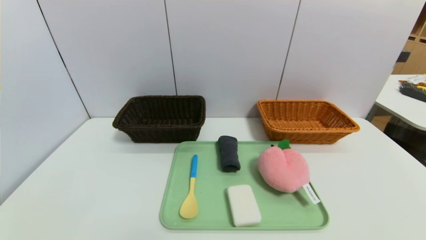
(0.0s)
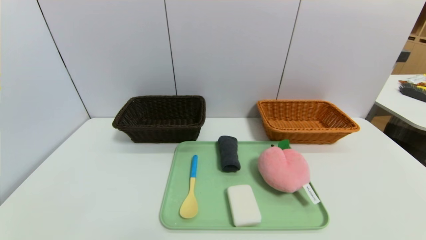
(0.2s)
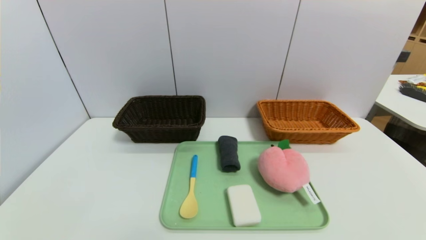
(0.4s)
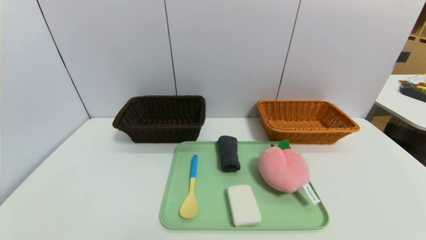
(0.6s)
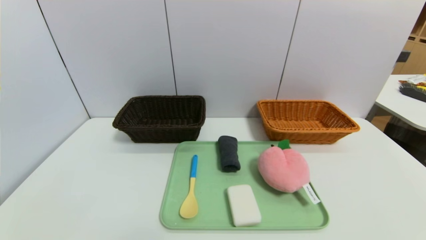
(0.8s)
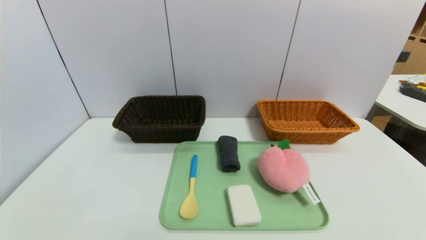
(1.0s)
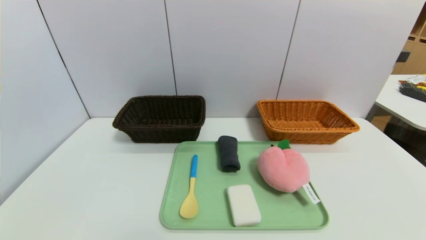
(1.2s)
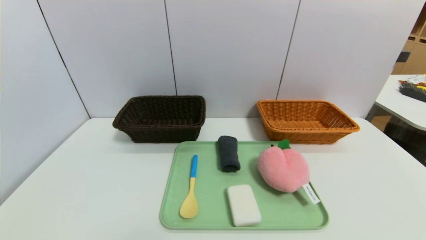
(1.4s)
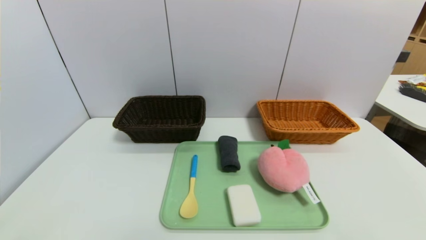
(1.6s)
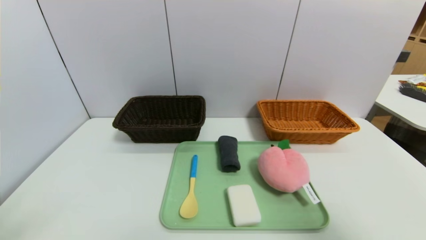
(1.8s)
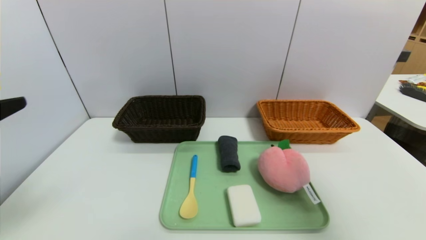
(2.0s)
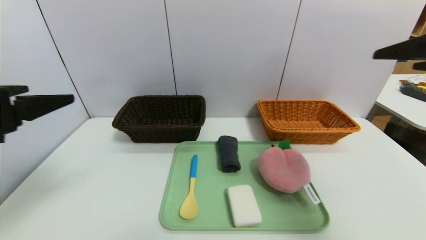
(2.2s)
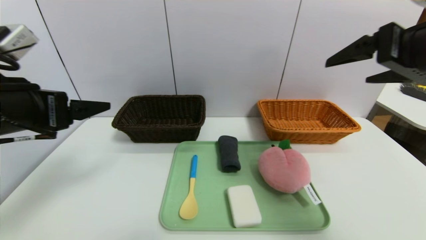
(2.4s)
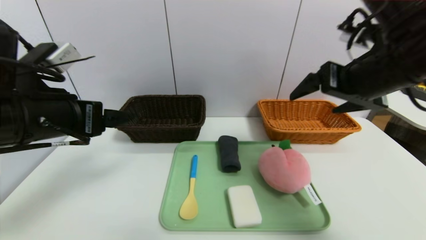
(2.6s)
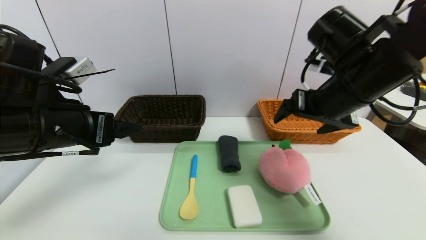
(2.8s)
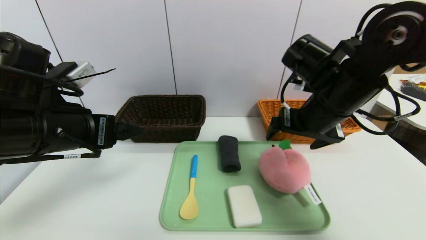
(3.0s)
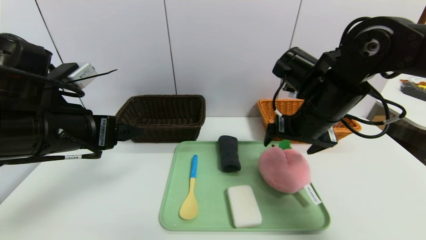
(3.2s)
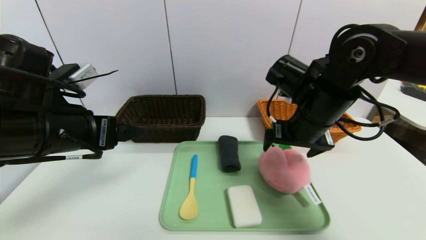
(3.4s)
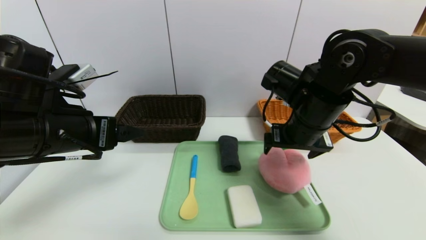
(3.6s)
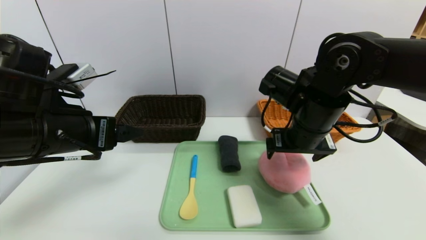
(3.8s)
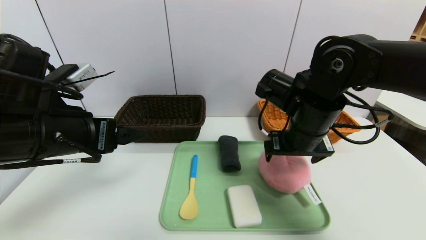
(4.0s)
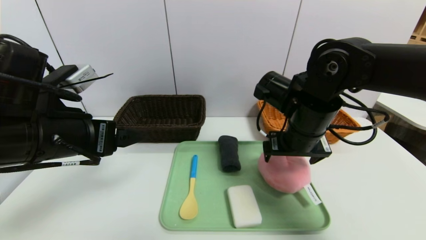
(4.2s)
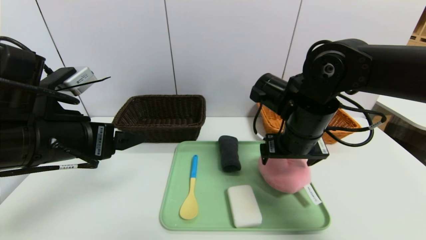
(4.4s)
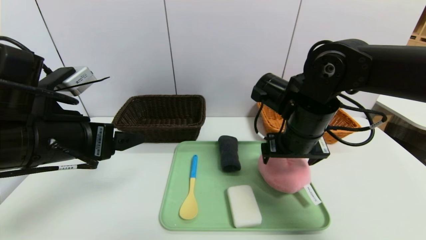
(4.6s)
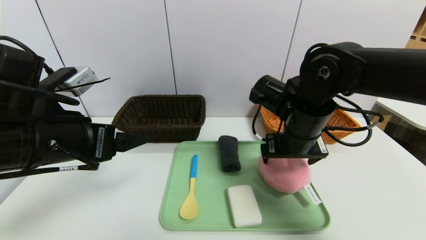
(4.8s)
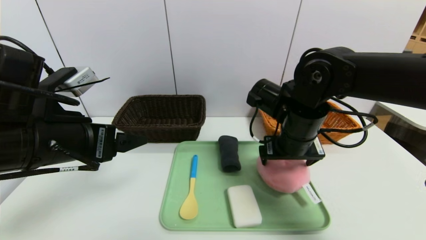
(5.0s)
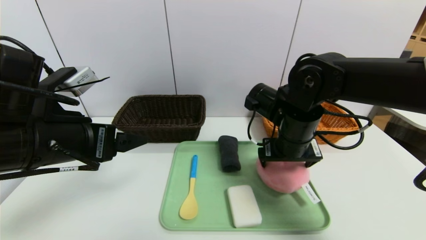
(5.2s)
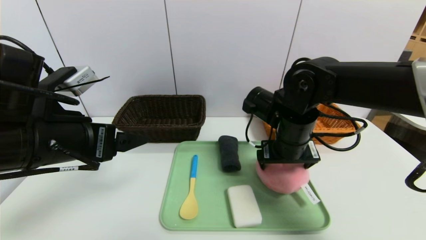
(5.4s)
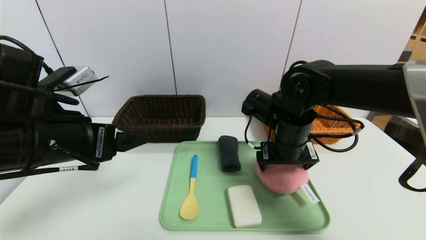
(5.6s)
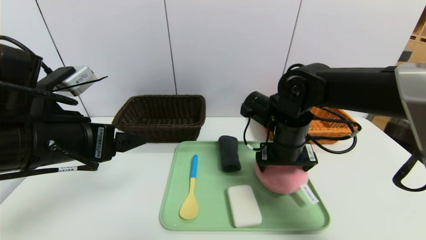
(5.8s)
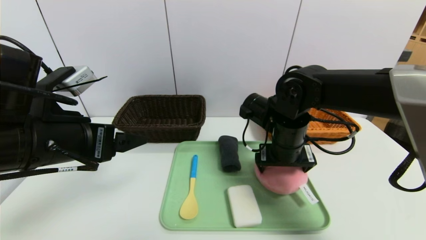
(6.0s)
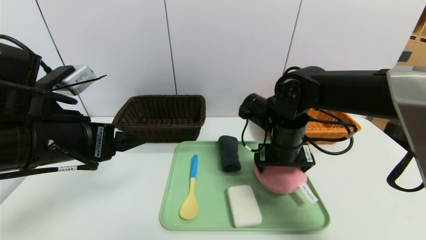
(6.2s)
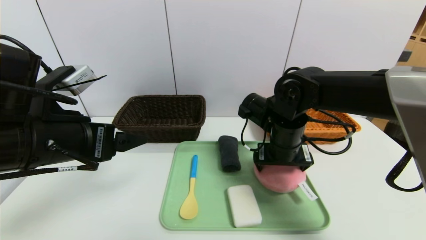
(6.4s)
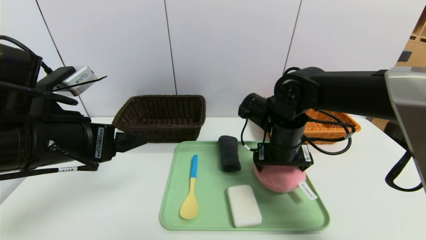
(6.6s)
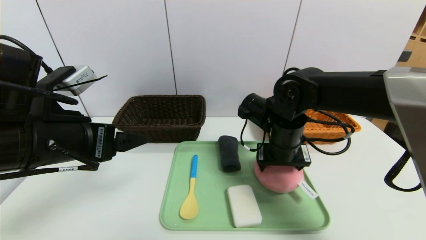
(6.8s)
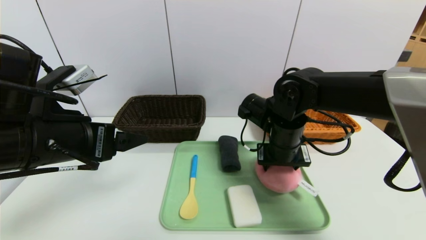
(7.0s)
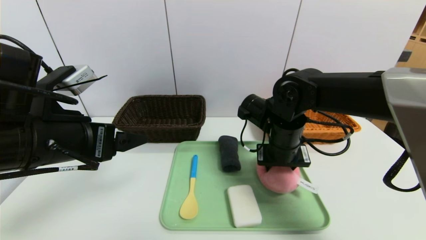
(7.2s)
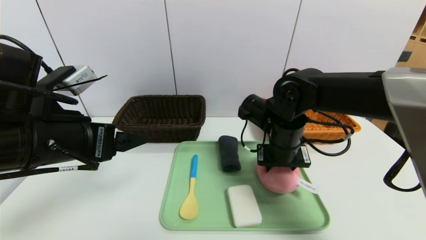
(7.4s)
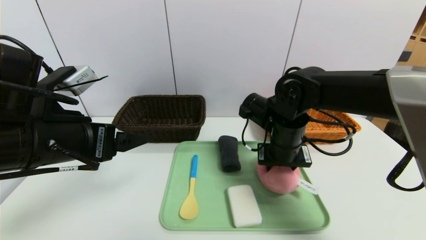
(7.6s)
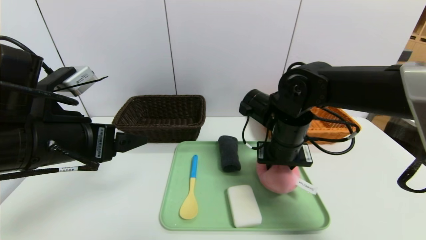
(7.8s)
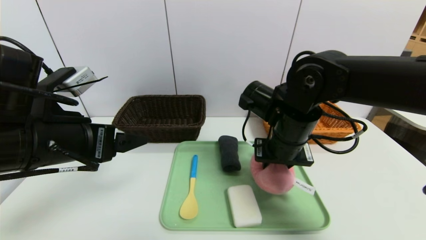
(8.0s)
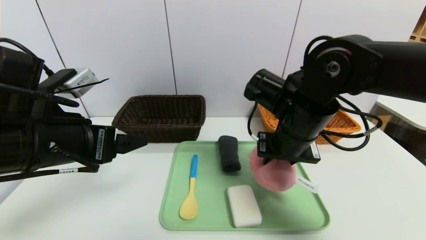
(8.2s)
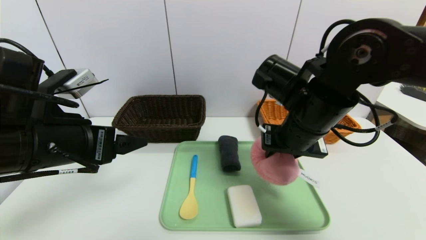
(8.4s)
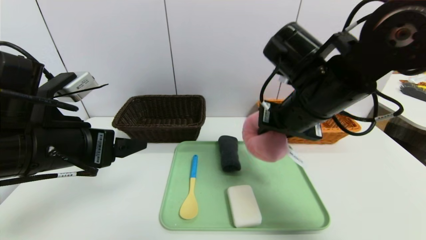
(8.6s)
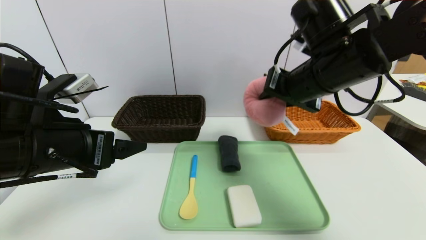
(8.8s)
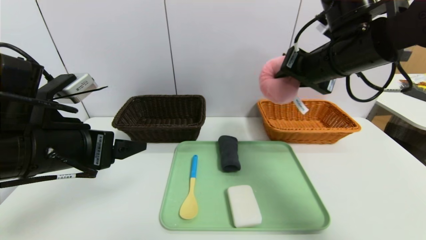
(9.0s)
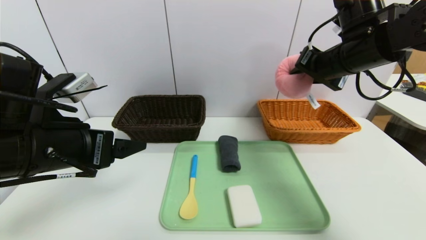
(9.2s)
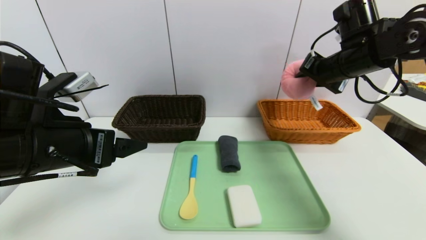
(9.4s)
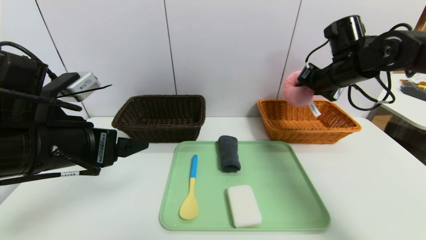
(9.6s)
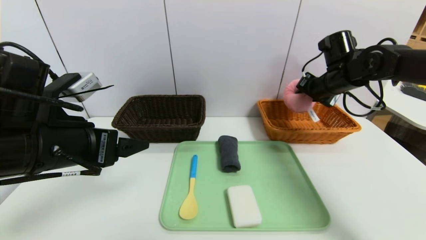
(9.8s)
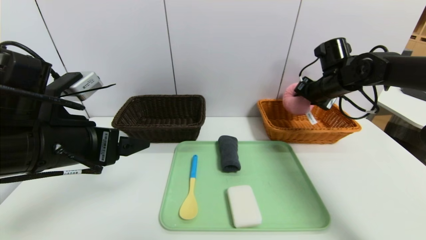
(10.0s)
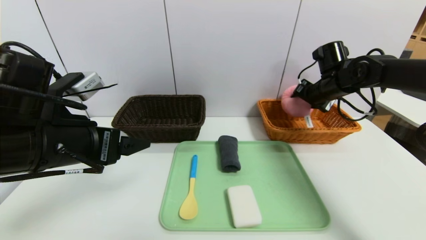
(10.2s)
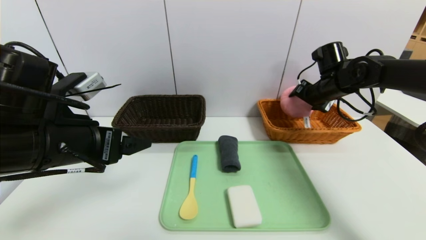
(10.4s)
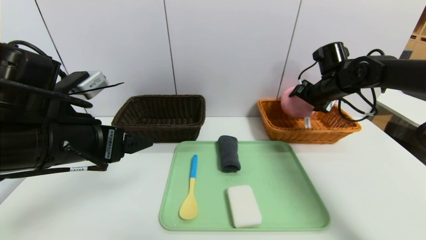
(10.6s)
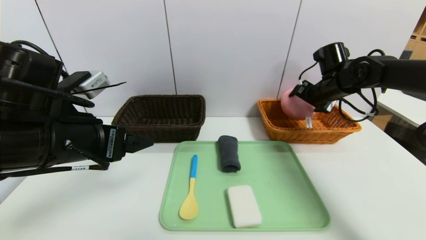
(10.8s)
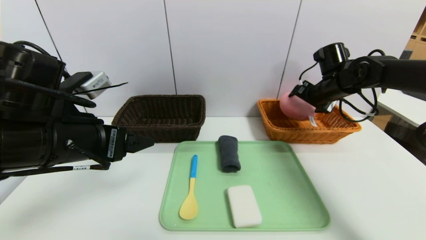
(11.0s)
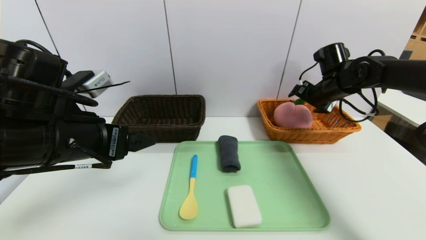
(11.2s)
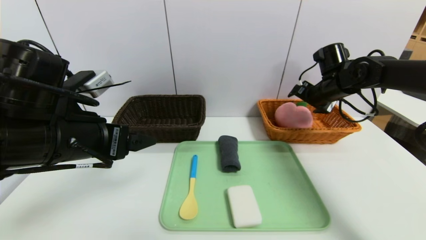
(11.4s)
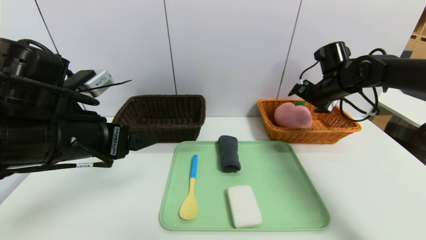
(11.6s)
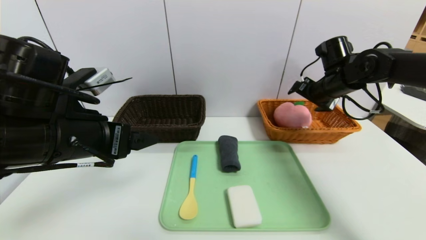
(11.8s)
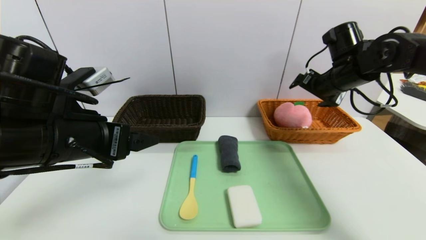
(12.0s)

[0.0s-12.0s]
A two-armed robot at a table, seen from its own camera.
Task of the whole recording: place the food in the right basket with the right gripper, and place the non food items in the left basket with the left gripper.
Step, 0.0s to 11.8s: Grasp the peach doll and put it in the right basket.
1.6s to 3.0s: The left gripper shifts approximately 20 cm forward. Meanwhile the right gripper moves forward and to the left, approximately 35 cm.
3.0s to 4.4s: The right gripper changes place by about 5 cm.
4.4s to 6.0s: The right gripper changes place by some 5 cm.
6.0s to 7.6s: The right gripper closes its fingers.
7.6s to 9.0s: The right gripper travels upward and to the right by approximately 15 cm.
9.0s to 10.4s: The right gripper is displaced forward, downward and to the right by about 20 cm, and opens its fingers.
10.4s to 12.0s: The right gripper shifts by roughly 5 cm, and opens.

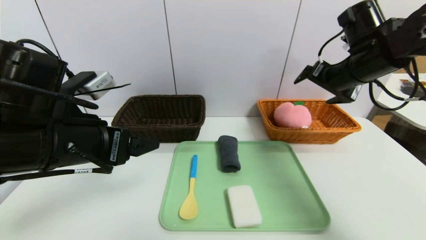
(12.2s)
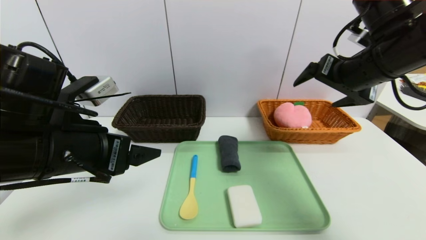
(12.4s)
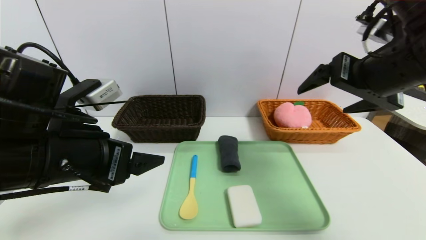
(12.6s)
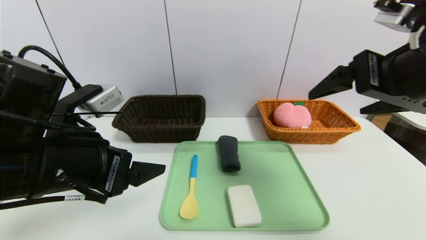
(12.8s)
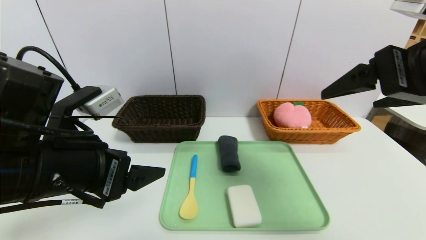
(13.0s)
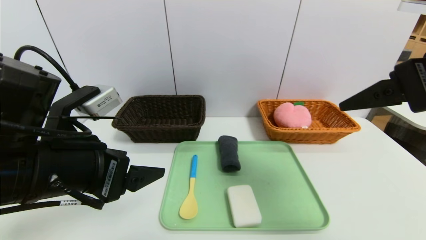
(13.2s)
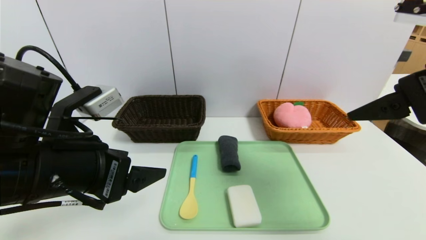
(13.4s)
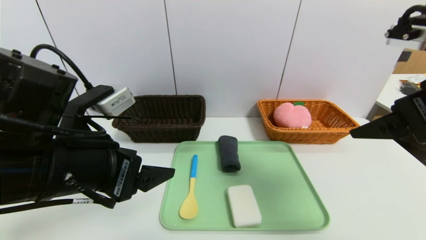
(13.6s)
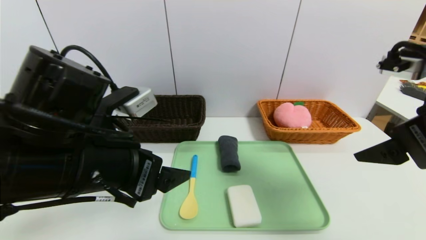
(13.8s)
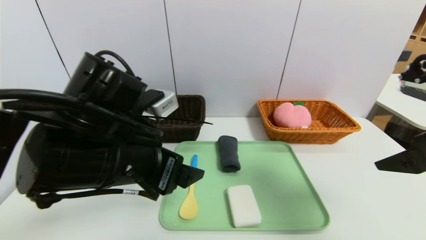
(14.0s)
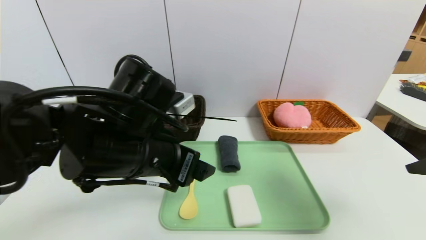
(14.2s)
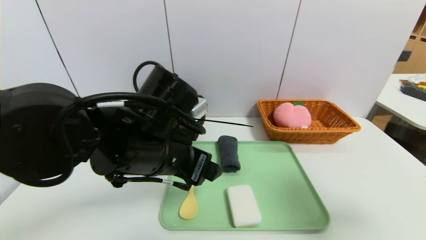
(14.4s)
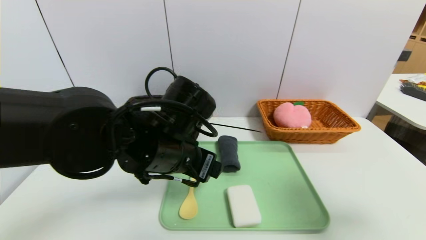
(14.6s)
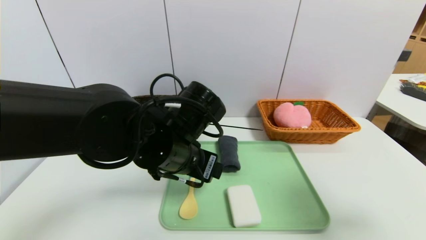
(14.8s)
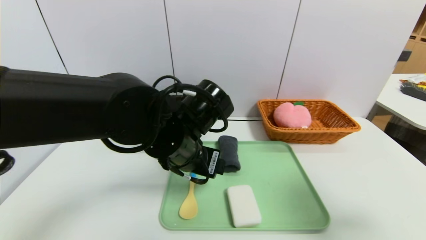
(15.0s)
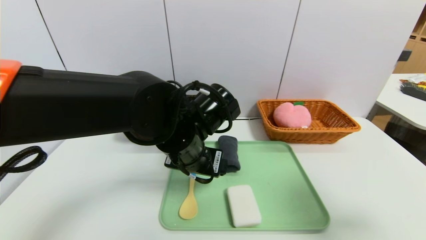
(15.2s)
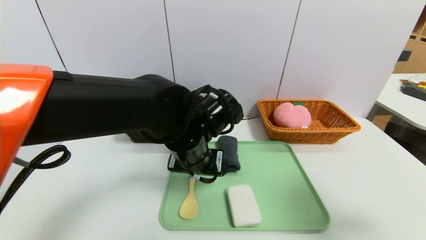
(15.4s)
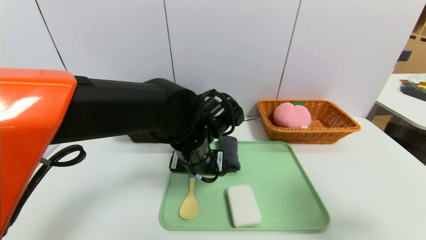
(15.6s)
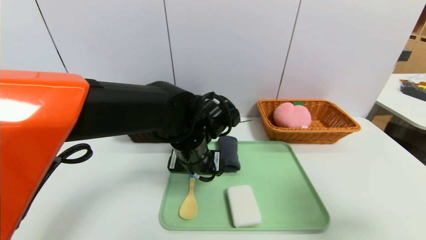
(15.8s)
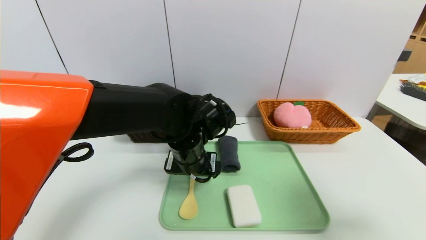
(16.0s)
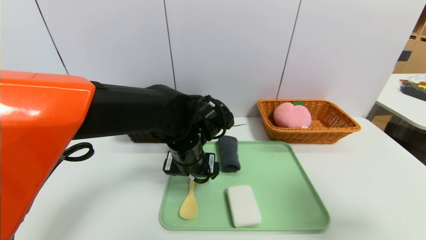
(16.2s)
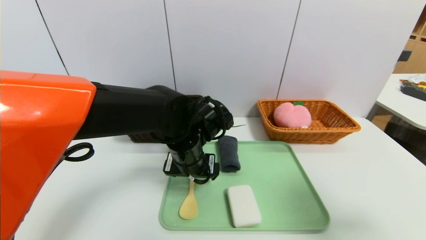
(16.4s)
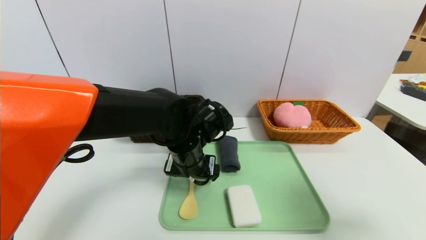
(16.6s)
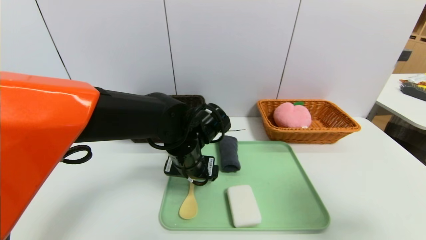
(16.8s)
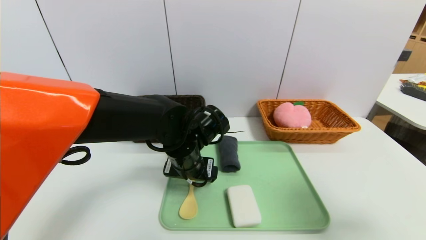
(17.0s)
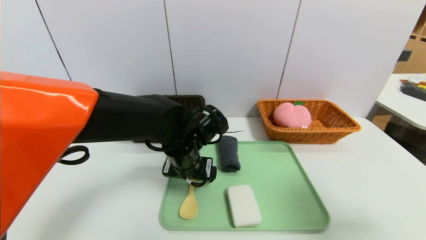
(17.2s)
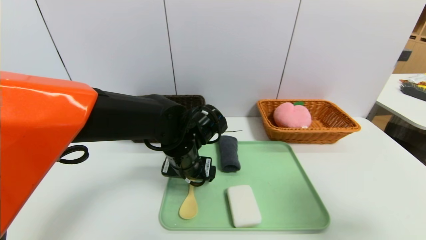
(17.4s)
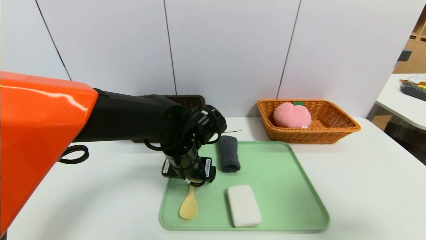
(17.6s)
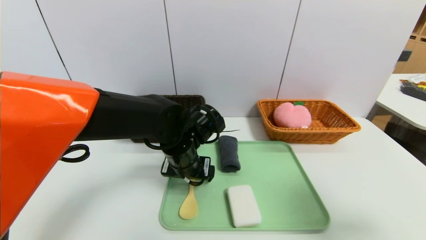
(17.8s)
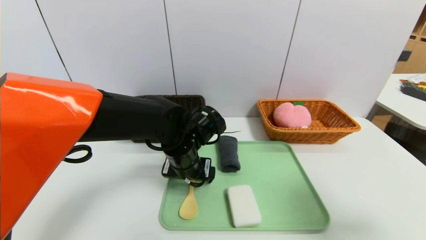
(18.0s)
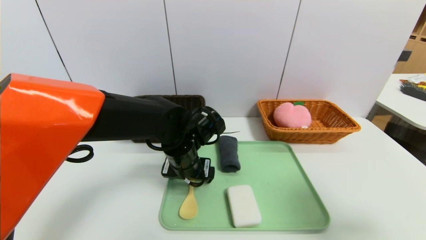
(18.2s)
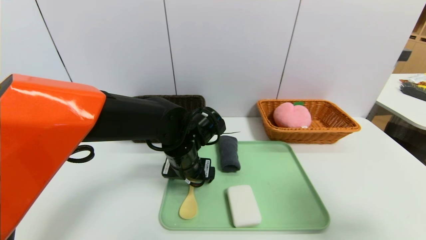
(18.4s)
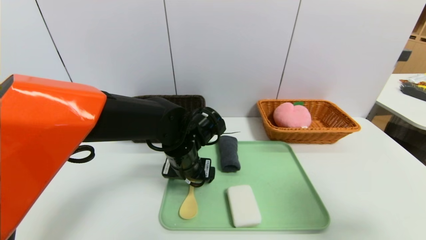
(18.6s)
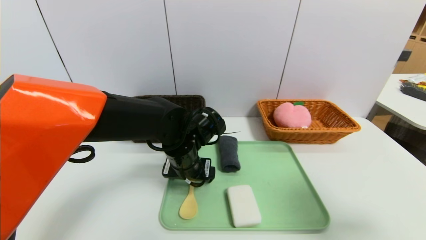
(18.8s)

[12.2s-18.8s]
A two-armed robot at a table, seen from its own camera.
Task of the whole recording: place the food in the right basket with the right gripper, and place the non food items in the left basket with the left gripper.
12.2s to 13.8s: The left gripper changes place by roughly 5 cm, while the right gripper shifts approximately 20 cm backward.
13.8s to 15.4s: The left gripper shifts roughly 15 cm to the right, forward and downward. Meanwhile the right gripper moves to the right and backward, approximately 10 cm.
15.4s to 17.2s: The left gripper moves roughly 5 cm.
17.2s to 18.8s: Both grippers stay put.
